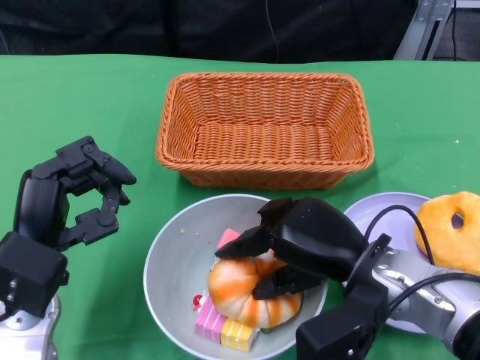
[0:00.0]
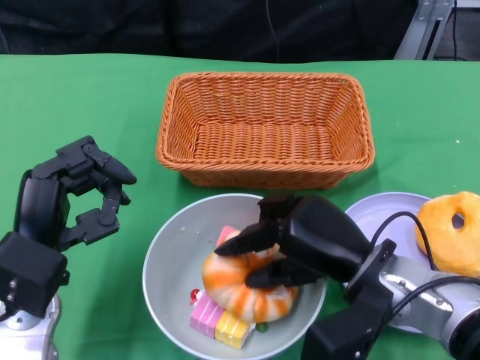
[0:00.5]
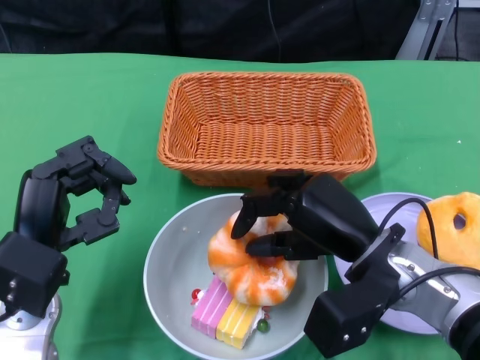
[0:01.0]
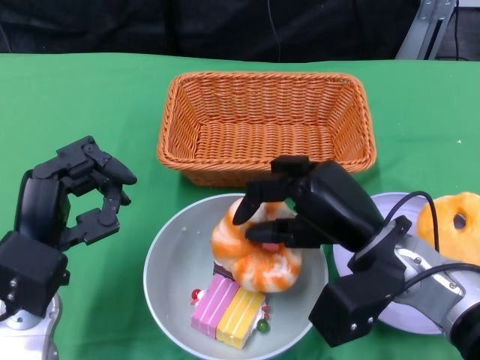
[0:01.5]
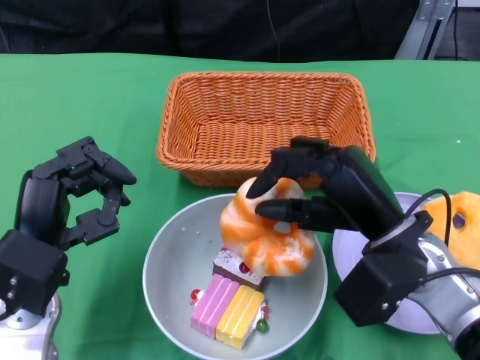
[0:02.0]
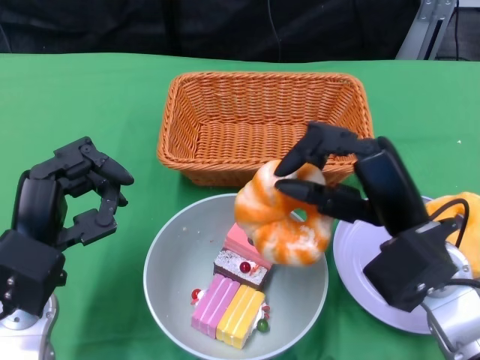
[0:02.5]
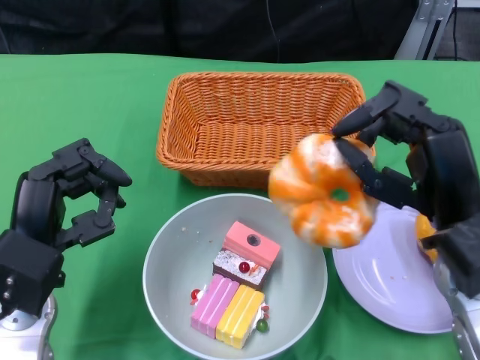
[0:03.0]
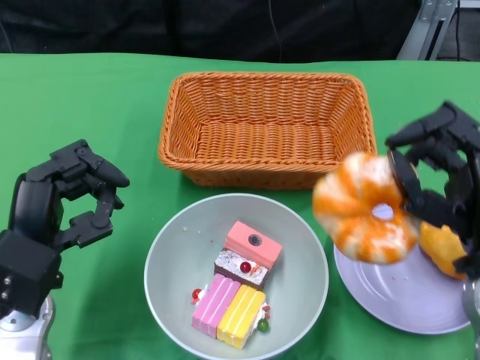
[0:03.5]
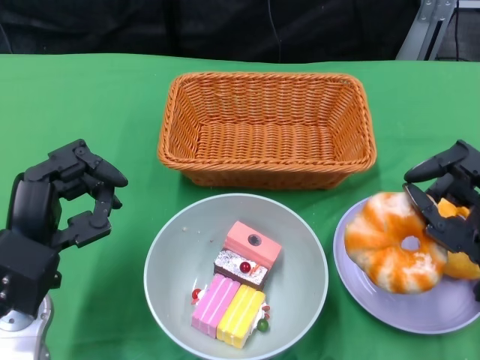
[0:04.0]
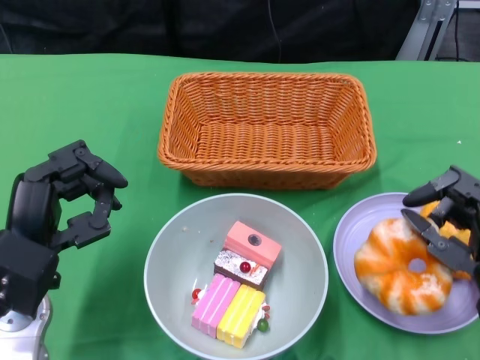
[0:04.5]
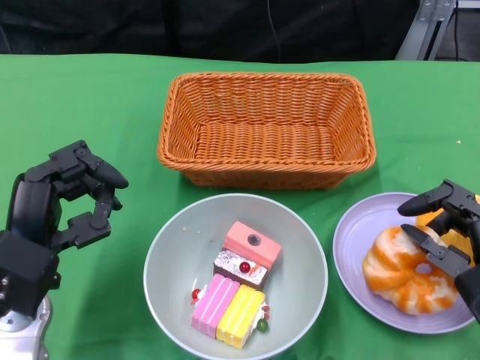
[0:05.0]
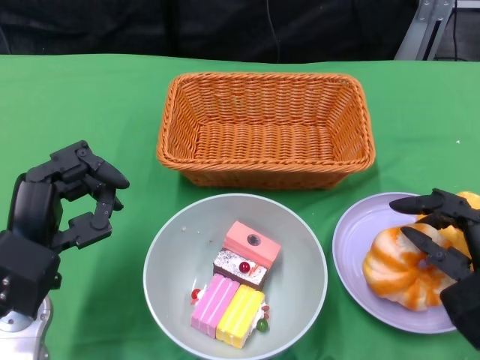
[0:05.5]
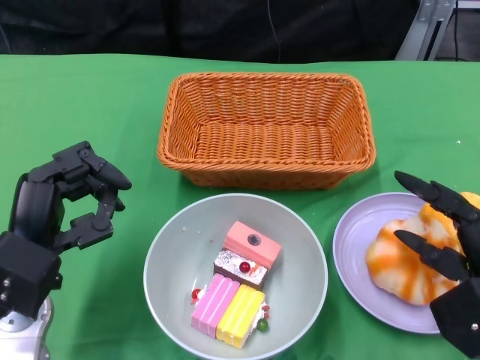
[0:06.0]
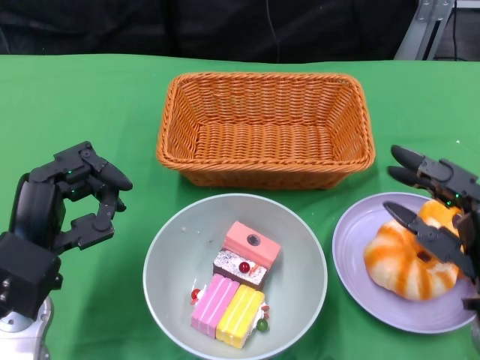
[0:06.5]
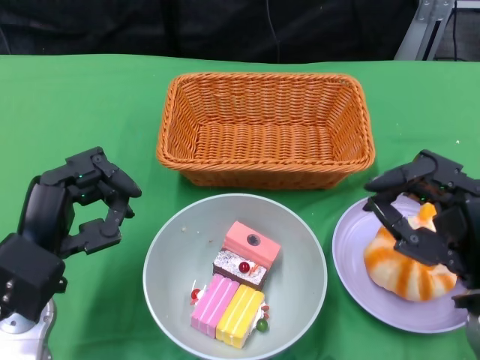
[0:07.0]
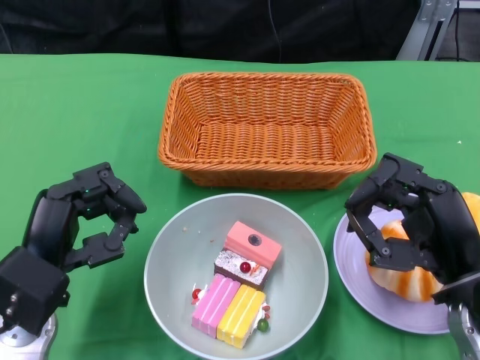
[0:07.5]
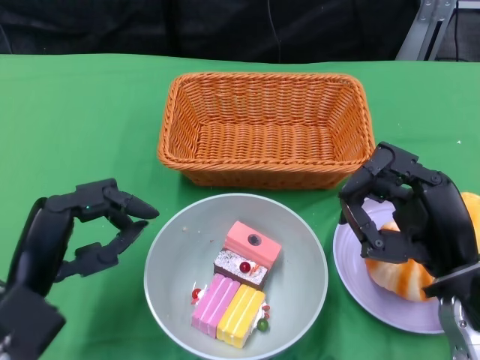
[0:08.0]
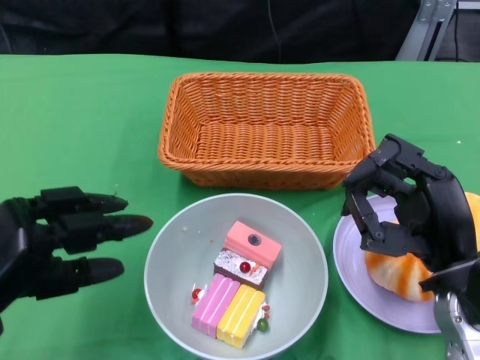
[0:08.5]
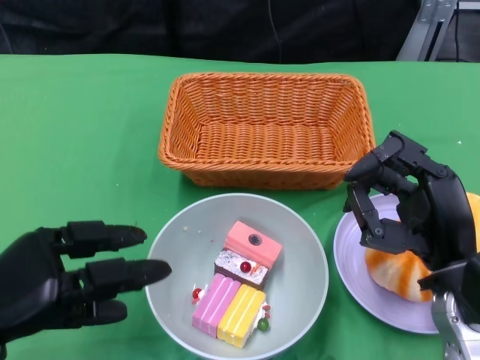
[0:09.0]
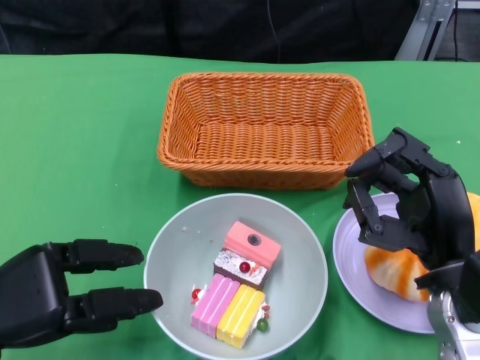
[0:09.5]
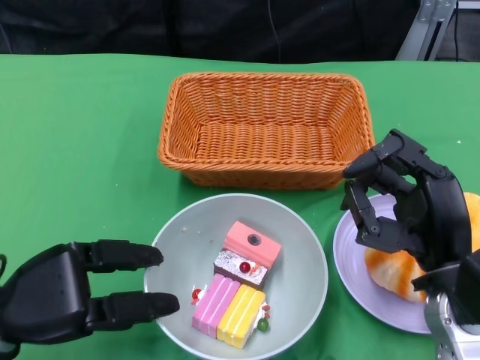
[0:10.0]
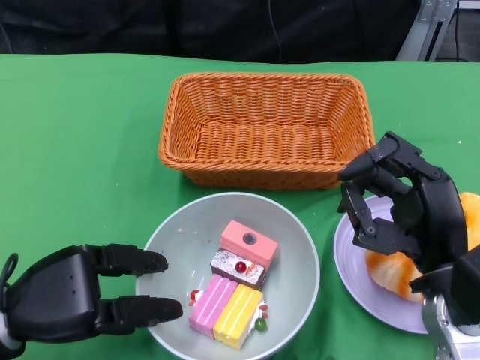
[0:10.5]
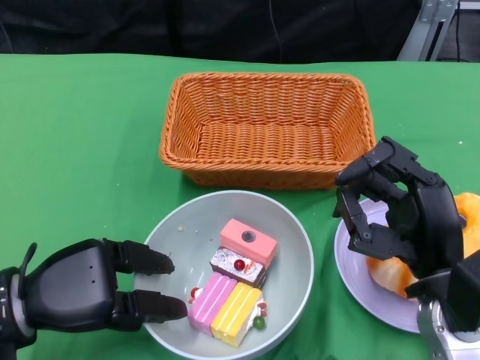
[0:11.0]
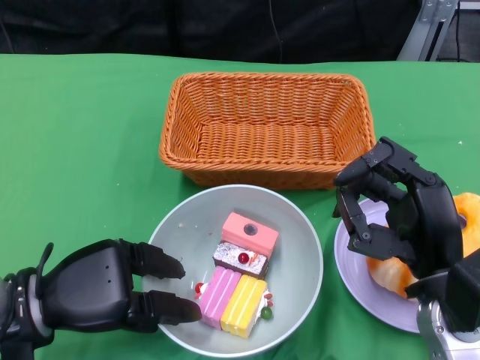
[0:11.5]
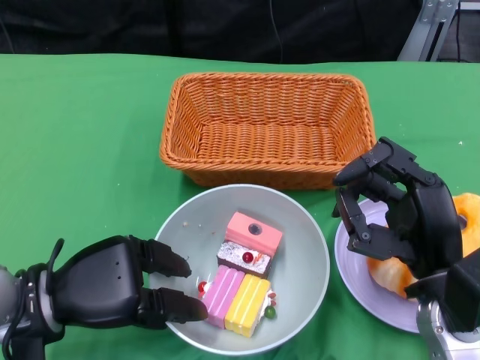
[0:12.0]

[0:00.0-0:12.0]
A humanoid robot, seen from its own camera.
Step, 0:00.0 to 0:08.0: Pick up the bread with the right gripper and place it on the plate.
0:02.0 to 0:04.0: The right hand is displaced to the right by approximately 10 cm.
0:06.0 to 0:08.0: The right hand shifts by approximately 5 cm.

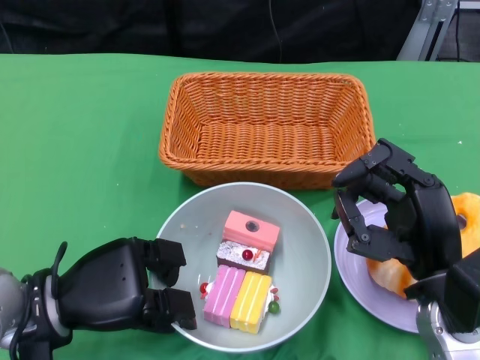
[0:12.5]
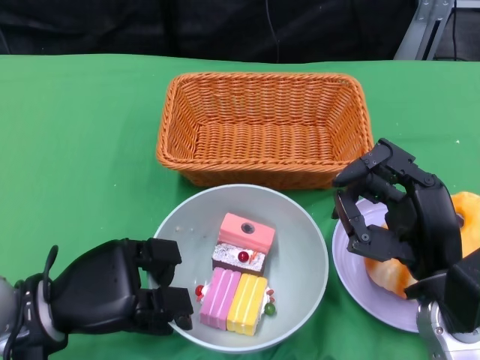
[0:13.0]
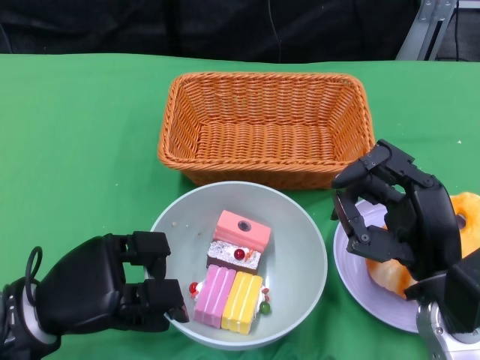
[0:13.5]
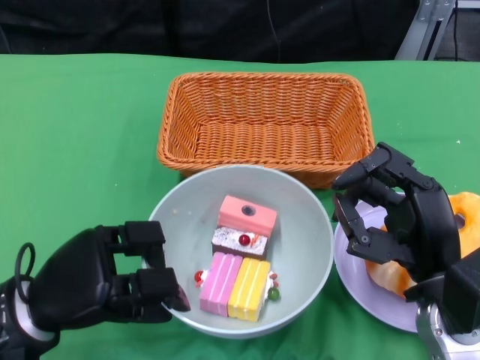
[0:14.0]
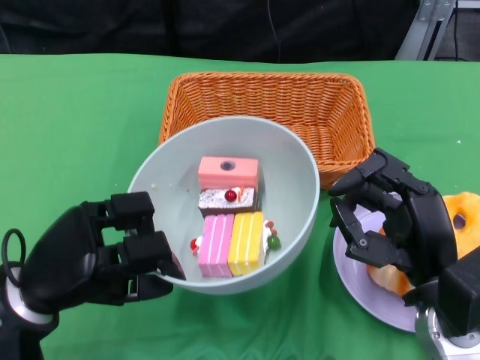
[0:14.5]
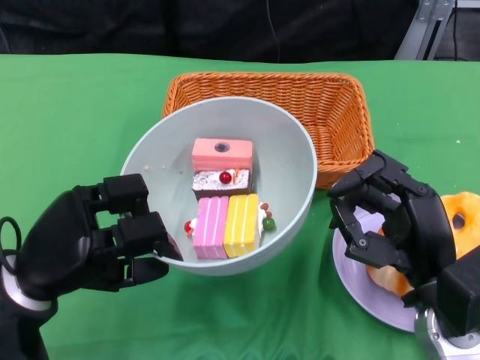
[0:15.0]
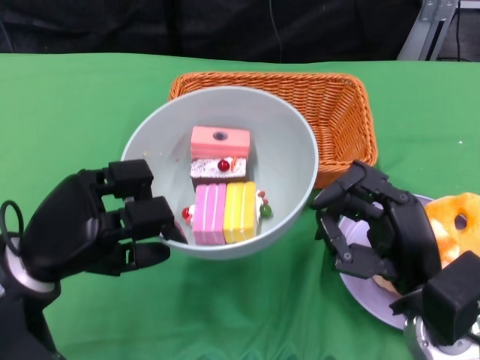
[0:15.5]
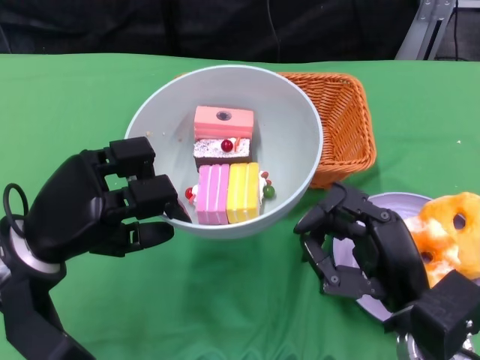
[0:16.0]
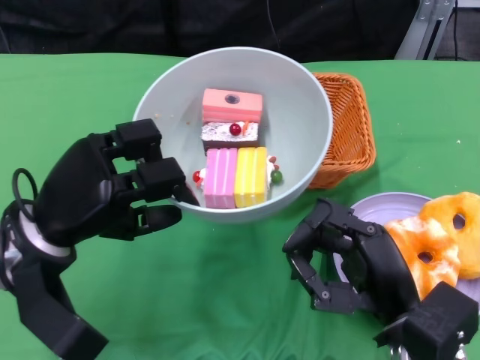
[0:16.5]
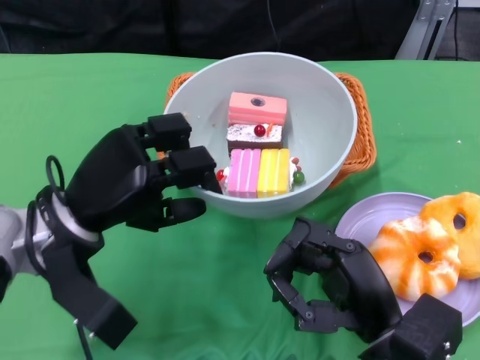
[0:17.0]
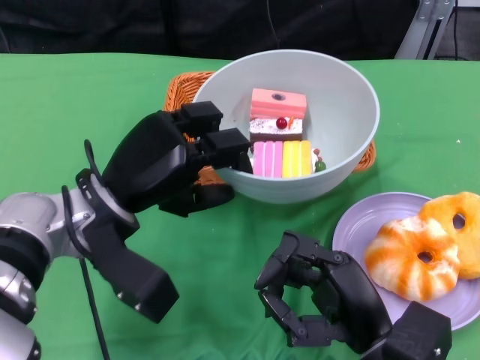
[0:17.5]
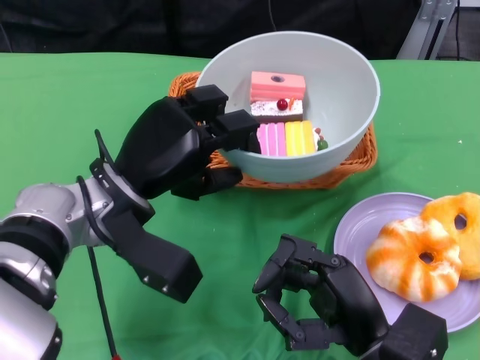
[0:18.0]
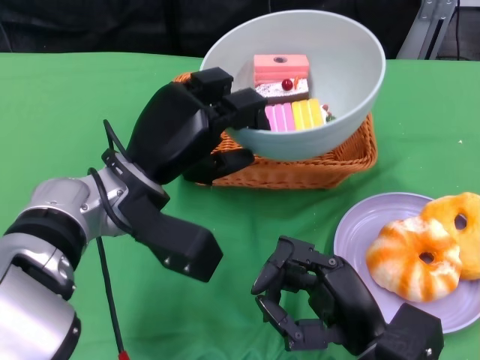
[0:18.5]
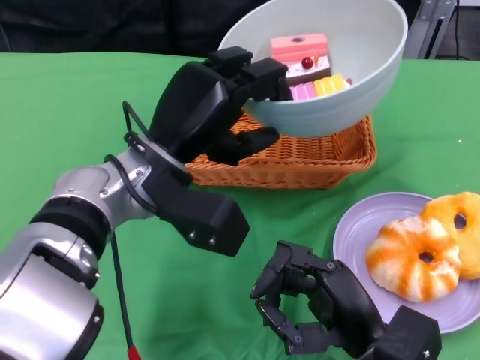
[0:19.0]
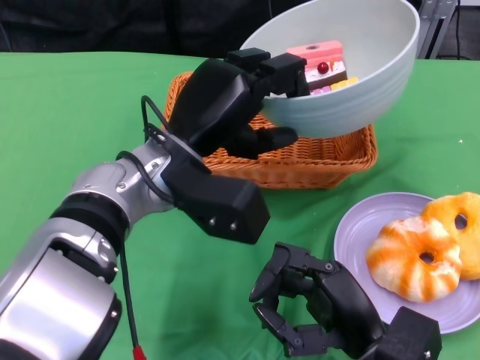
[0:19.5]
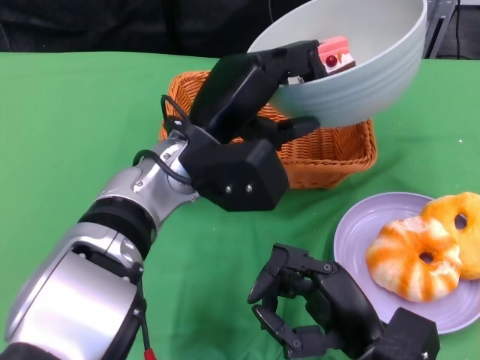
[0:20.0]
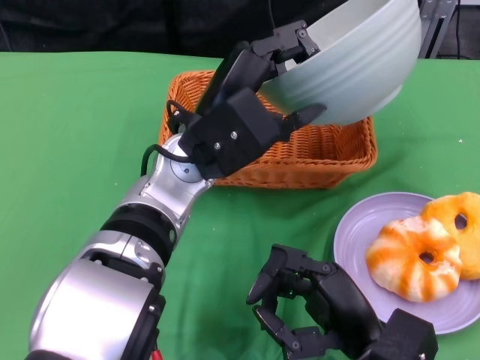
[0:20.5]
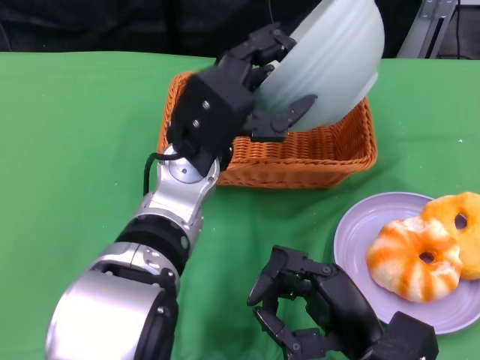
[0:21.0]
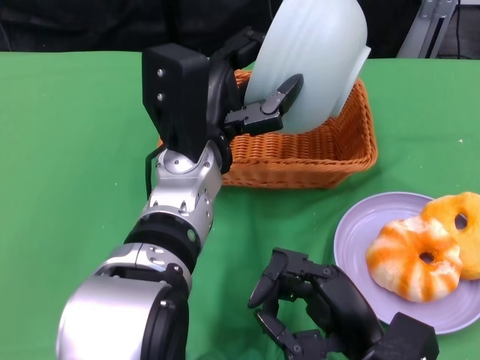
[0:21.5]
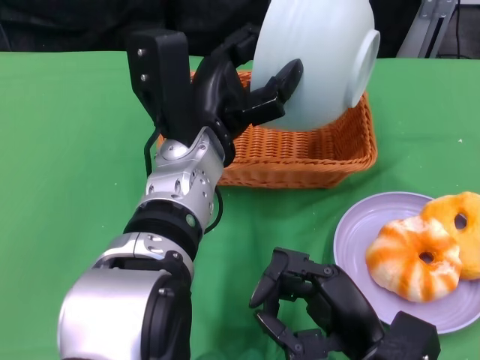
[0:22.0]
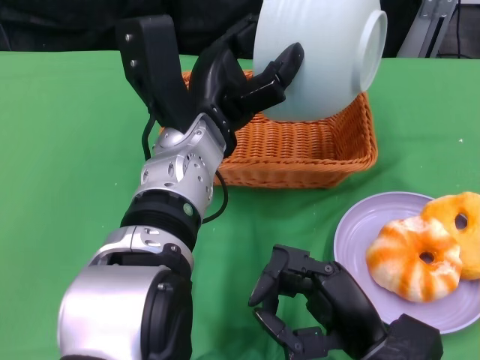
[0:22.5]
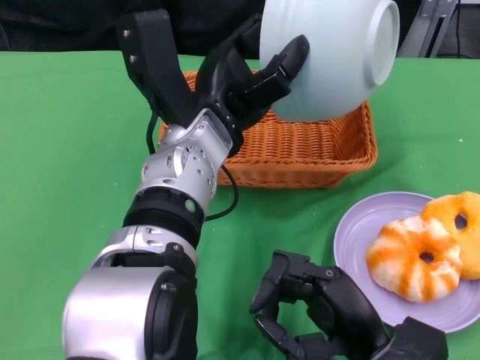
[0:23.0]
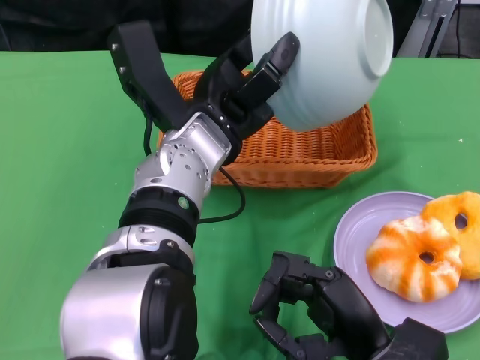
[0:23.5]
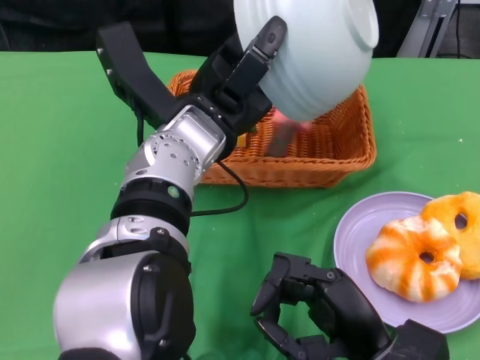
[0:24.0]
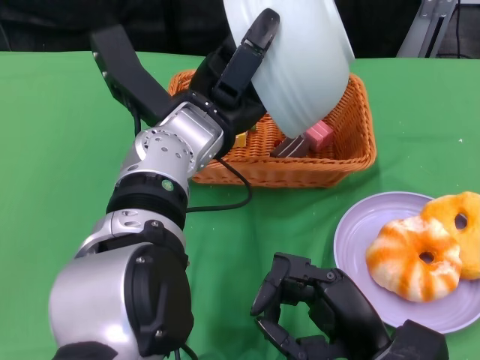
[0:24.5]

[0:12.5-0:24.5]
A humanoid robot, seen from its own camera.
0:14.5 to 0:16.5: The left hand moves some 5 cm.
0:16.5 to 0:18.5: The left hand moves to the right, roughly 10 cm.
0:18.5 to 0:20.5: The left hand heads to the right, covering roughly 5 cm.

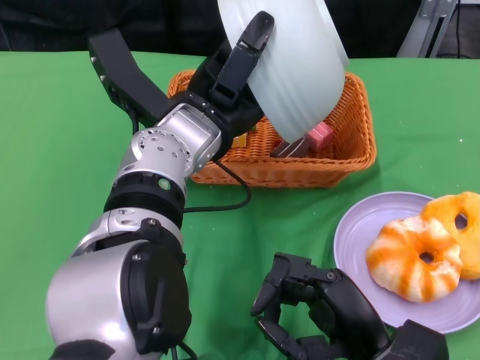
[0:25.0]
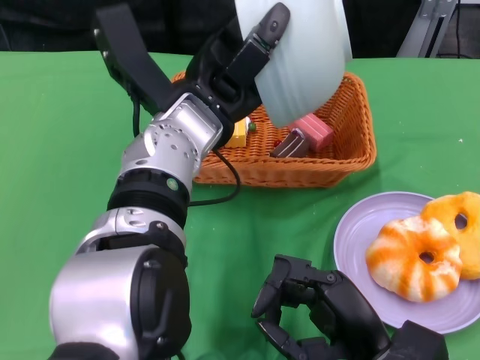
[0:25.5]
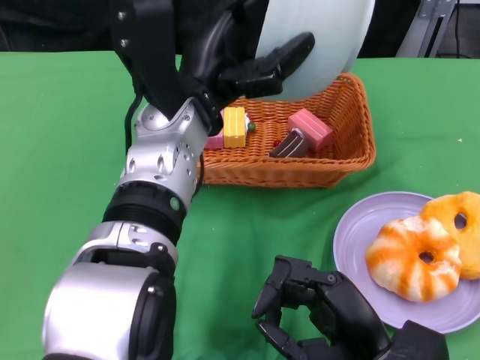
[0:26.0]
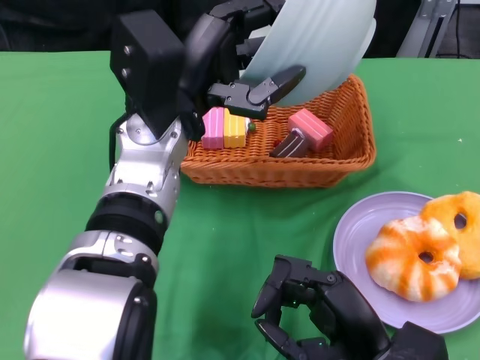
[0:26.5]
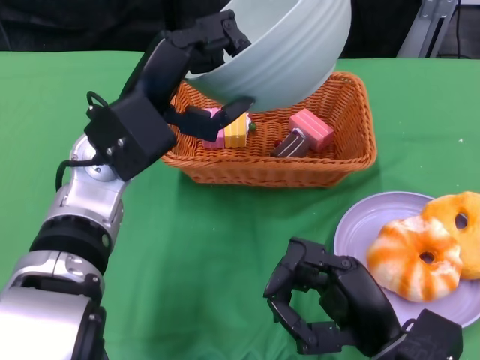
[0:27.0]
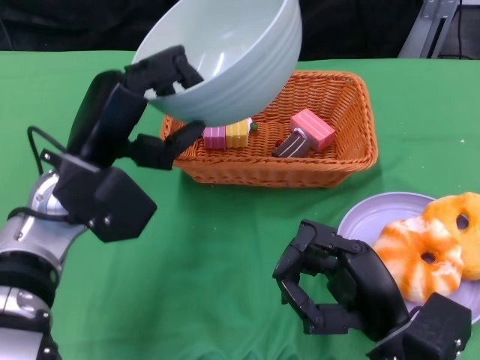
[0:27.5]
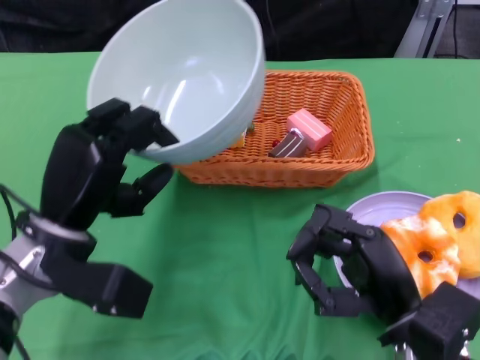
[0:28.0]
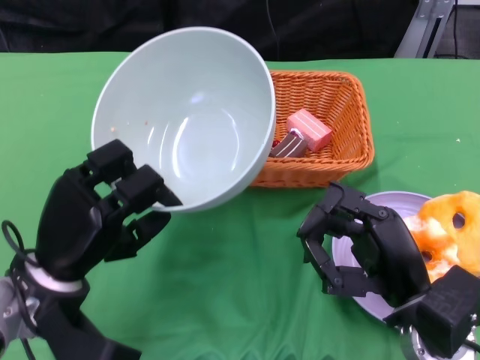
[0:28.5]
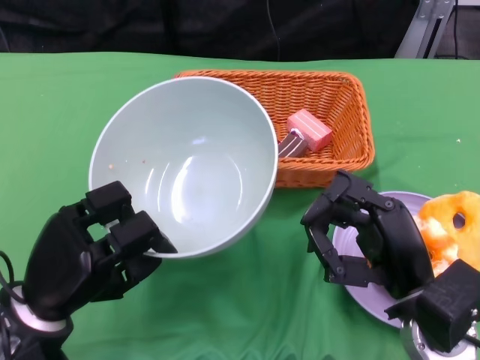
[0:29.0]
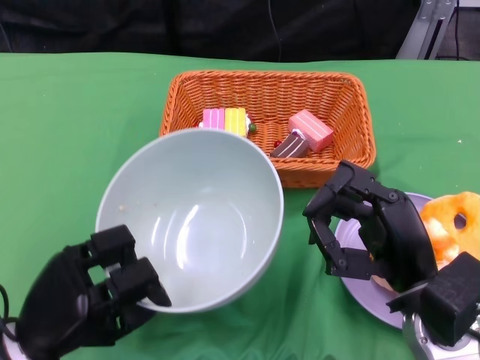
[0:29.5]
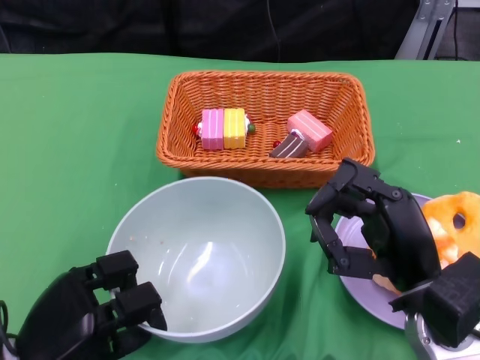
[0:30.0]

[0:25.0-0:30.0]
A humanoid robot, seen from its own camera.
0:25.0 to 0:27.5: The left hand is displaced to the left by about 10 cm.
0:27.5 to 0:30.0: The left hand travels downward, backward and to the left by approximately 20 cm.
